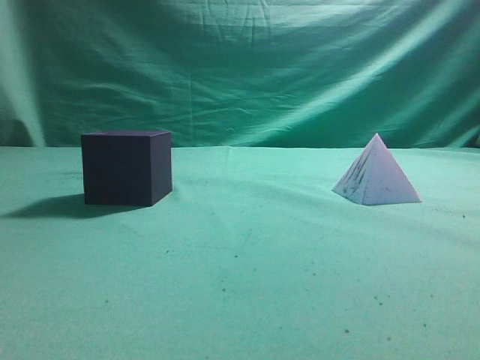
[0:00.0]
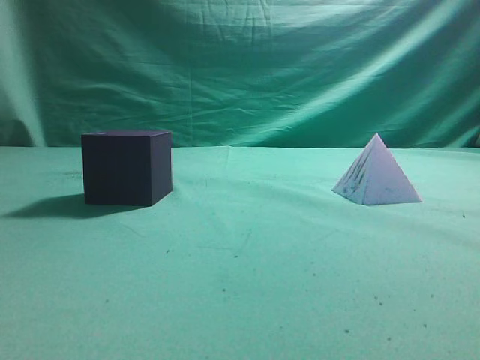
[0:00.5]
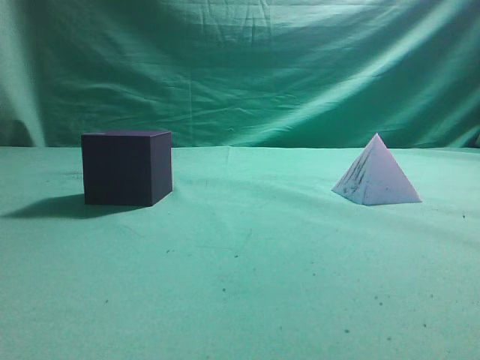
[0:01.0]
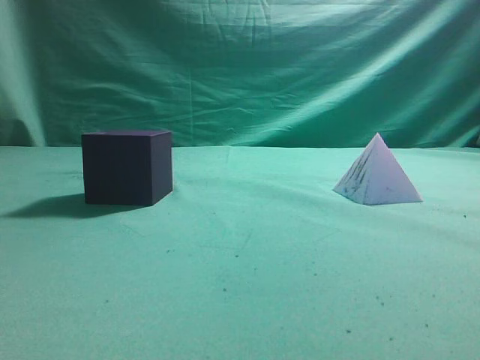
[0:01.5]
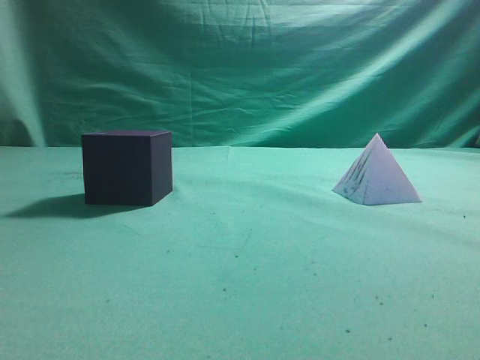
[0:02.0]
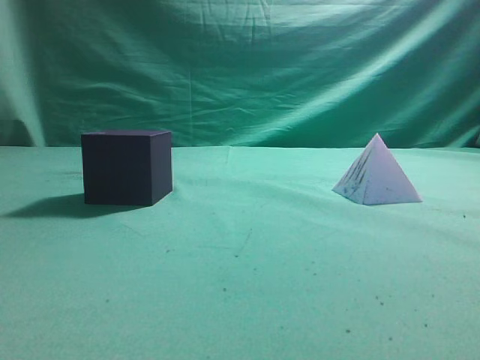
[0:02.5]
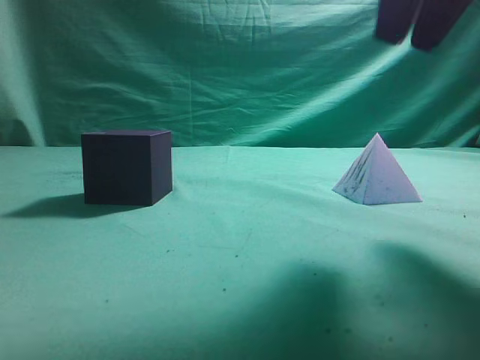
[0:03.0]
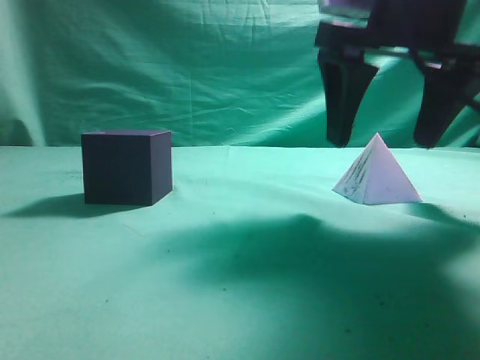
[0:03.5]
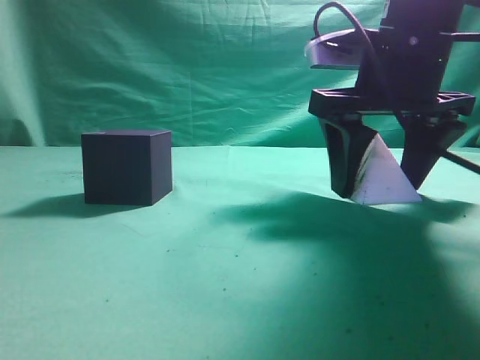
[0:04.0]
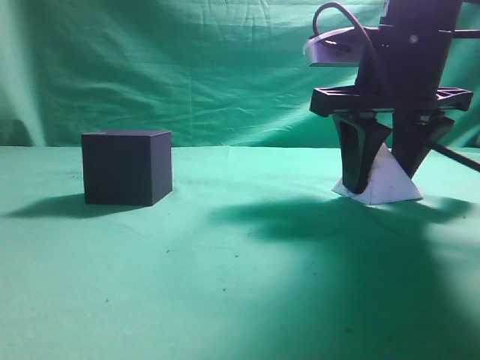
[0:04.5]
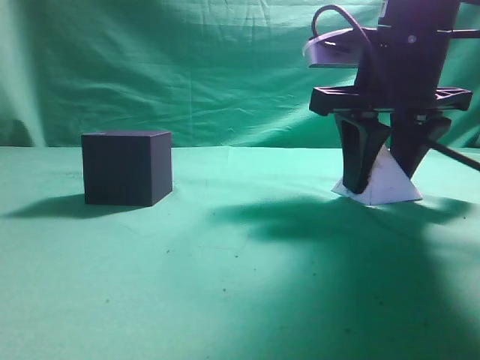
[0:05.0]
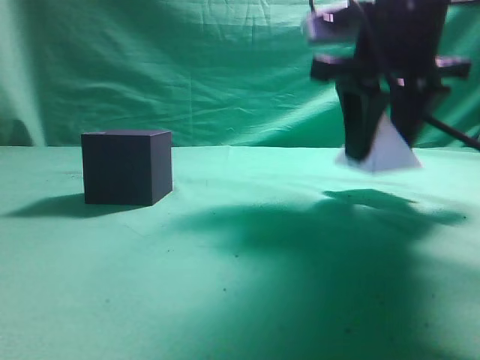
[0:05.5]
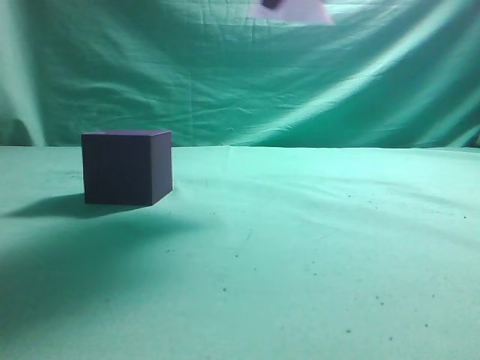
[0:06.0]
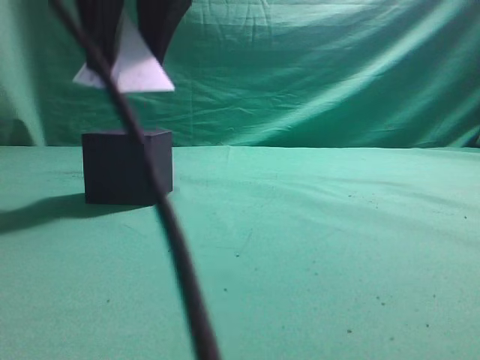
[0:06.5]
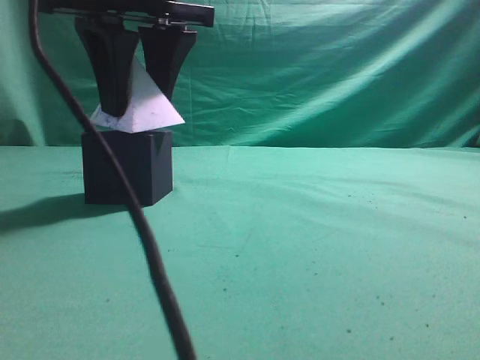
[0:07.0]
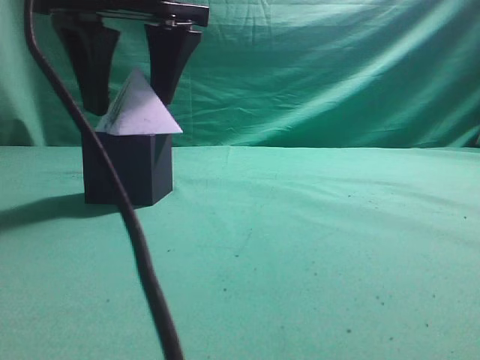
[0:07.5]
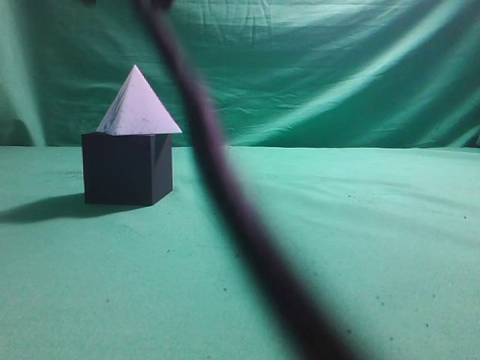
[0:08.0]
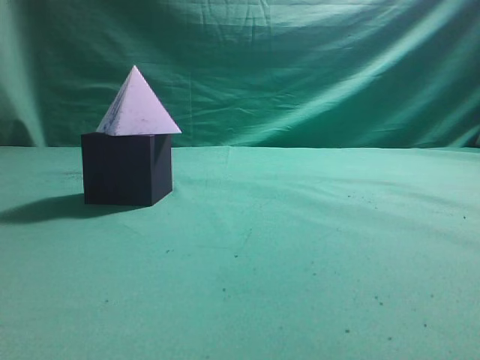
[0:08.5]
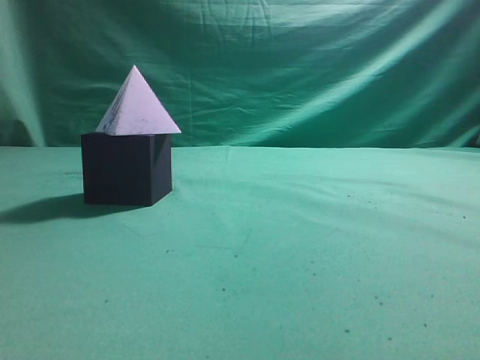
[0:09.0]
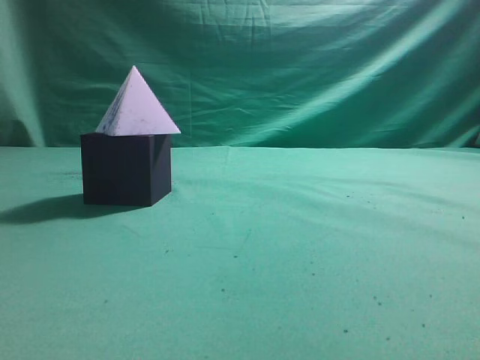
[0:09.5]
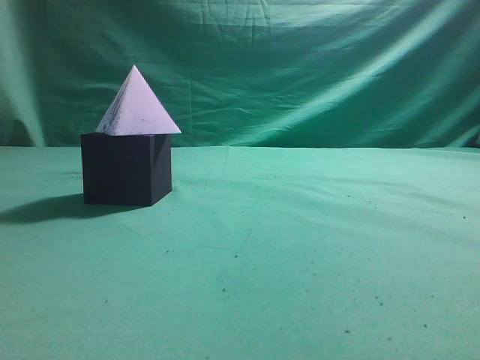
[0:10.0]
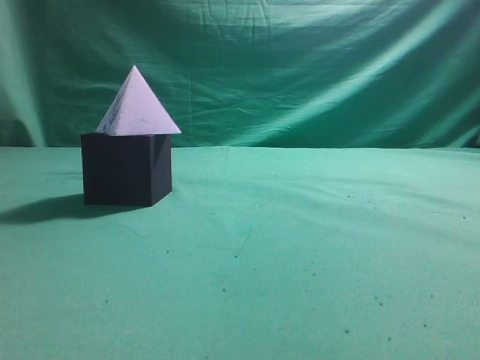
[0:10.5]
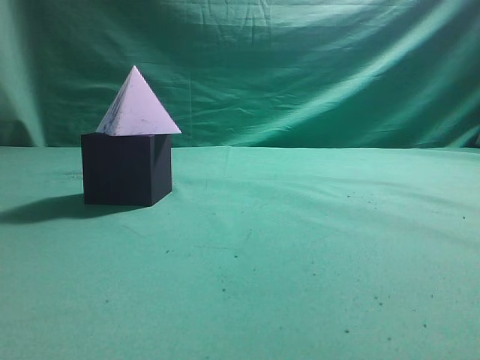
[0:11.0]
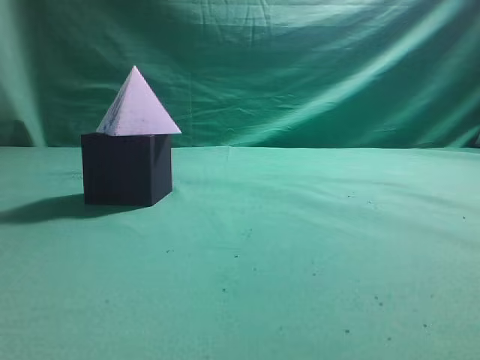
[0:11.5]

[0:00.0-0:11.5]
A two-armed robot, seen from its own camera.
Task of the whole recording: pick up the square pyramid from the table and place it on the cube block.
Step, 0:00.0 to 0:05.5: Grasp the triangular block.
Step, 0:06.0 to 0:07.5: Place the block onto the cube-shaped block.
0:02.0 to 0:04.0: The right gripper is displaced forward, downward and to the left by approximately 30 cm, and opens up.
0:04.0 to 0:06.0: The right gripper travels upward by roughly 15 cm.
0:06.0 to 0:07.5: The right gripper heads to the left and downward, covering approximately 15 cm.
0:07.5 to 0:09.5: The right gripper heads to the right, backward and upward, covering roughly 40 cm, and closes.
